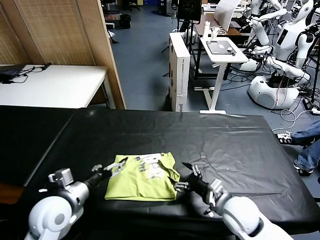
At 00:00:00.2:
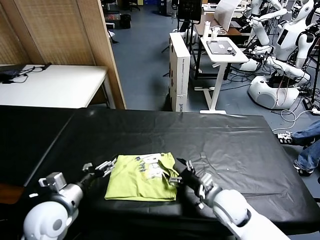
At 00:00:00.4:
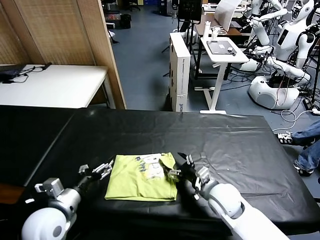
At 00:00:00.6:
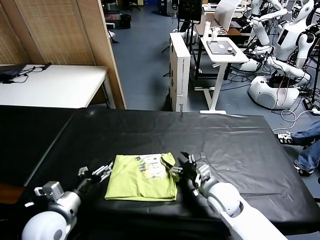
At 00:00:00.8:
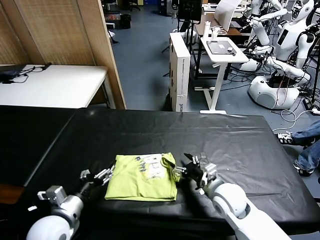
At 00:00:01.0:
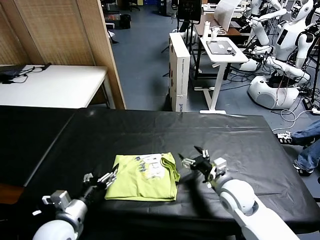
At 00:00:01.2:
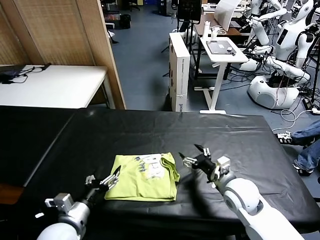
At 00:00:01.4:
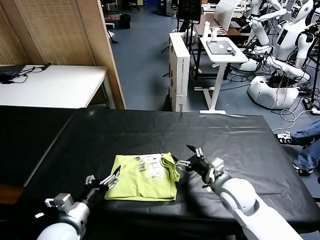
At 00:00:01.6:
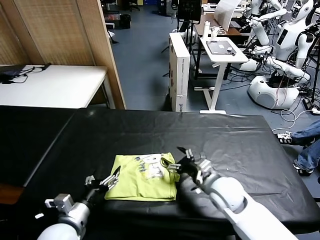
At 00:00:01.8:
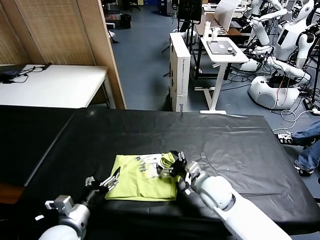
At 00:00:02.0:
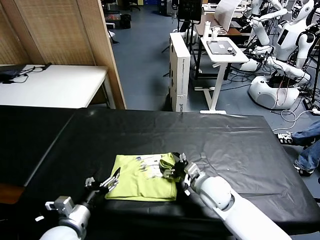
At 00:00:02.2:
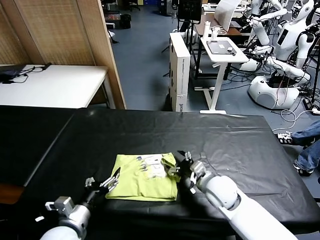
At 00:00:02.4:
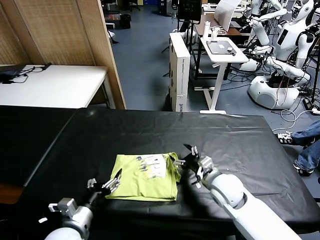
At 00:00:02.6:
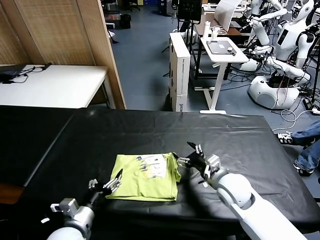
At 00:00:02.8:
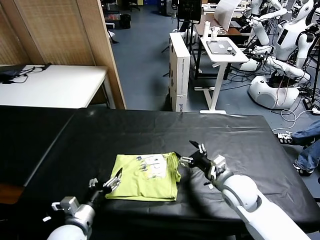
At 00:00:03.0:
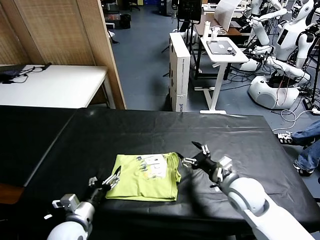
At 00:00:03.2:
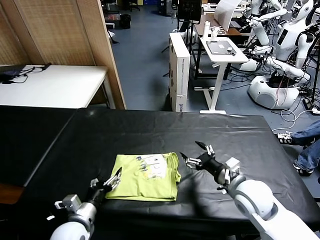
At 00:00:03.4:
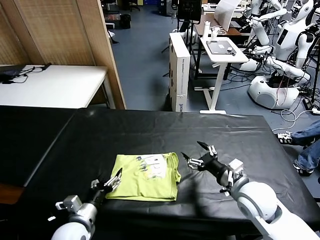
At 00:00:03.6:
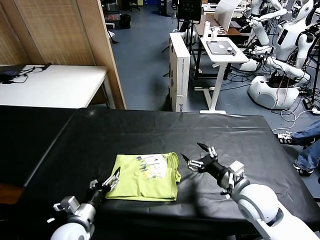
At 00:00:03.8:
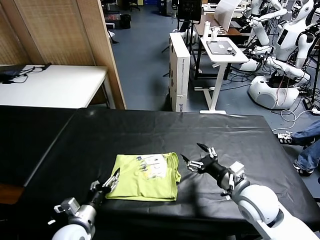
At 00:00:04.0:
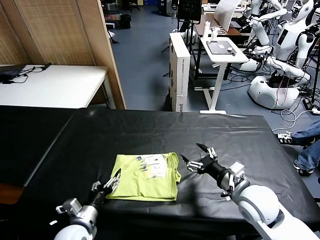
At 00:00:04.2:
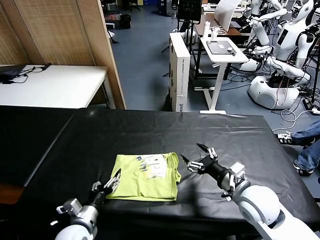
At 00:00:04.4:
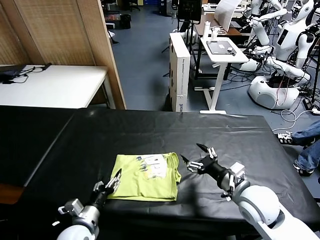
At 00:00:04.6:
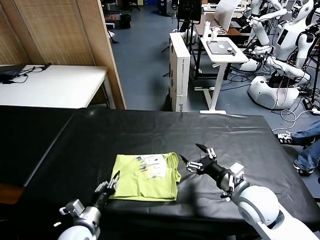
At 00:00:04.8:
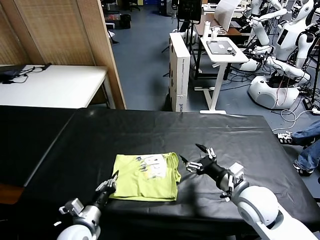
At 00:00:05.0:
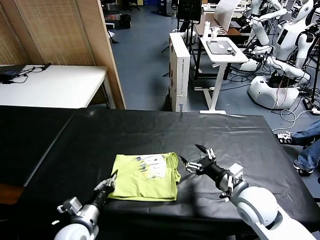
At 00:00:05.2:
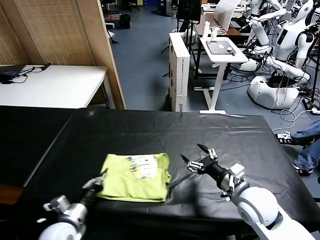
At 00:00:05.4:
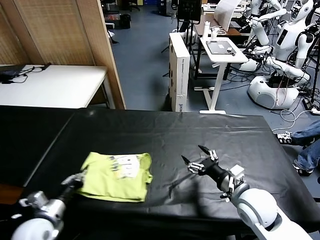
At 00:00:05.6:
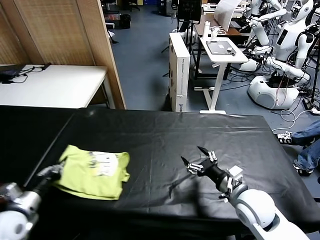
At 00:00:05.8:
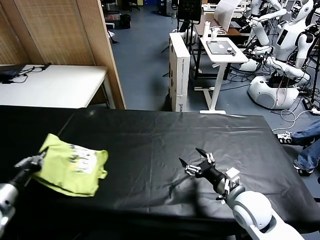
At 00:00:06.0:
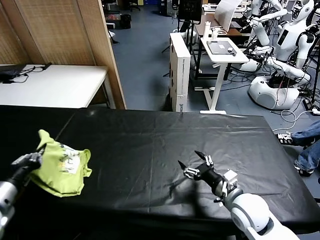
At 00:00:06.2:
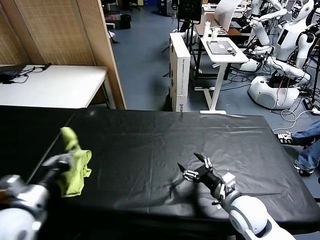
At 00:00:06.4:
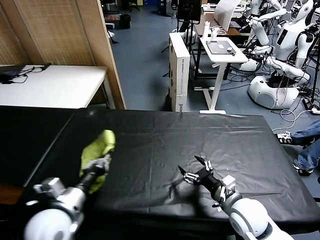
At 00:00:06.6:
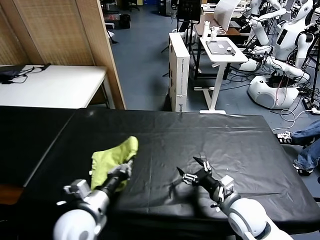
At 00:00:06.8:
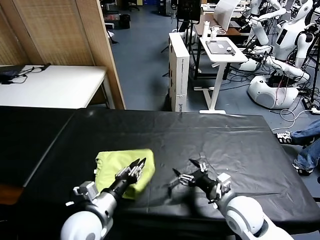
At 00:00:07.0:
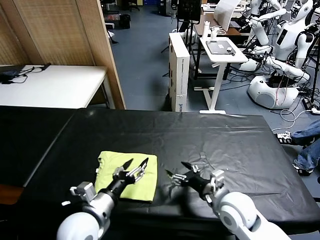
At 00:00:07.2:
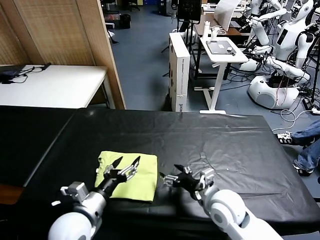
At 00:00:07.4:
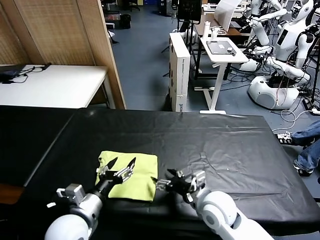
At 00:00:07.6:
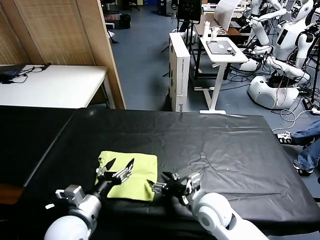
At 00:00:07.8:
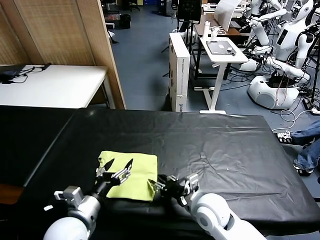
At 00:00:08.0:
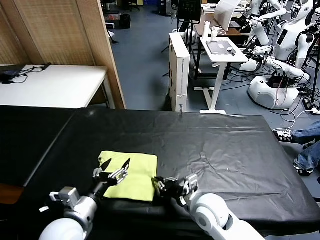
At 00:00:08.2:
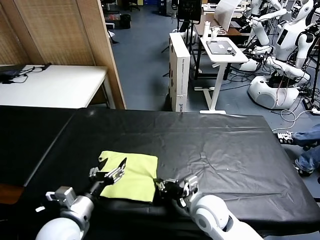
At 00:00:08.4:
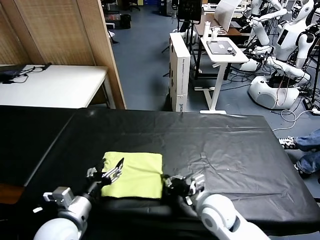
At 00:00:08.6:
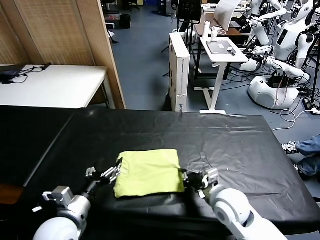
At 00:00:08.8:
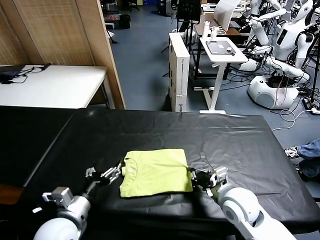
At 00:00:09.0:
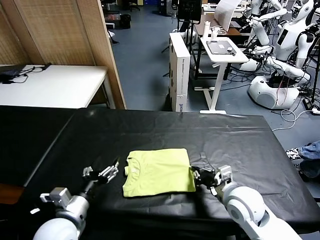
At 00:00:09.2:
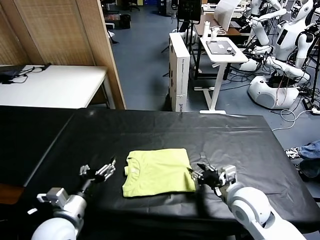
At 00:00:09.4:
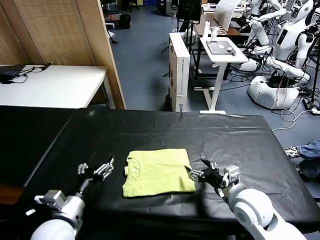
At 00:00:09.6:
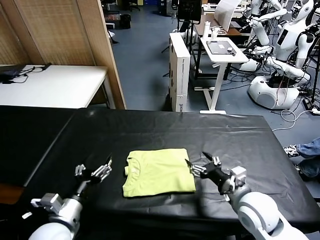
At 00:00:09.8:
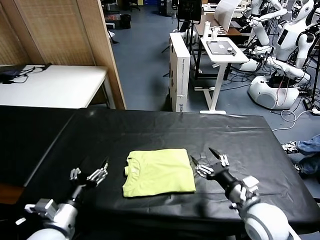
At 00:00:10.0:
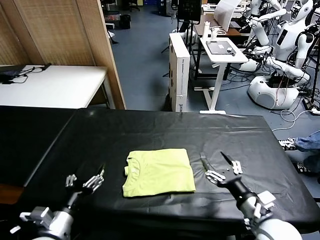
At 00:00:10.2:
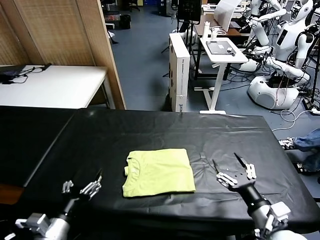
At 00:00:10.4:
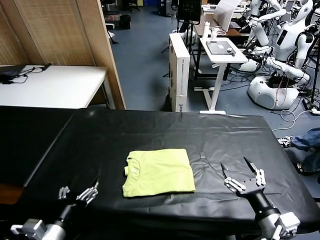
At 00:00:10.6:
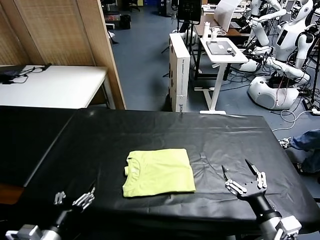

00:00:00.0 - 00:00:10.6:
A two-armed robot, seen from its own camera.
Task of the whole recording: fold and organize the clothes.
Step, 00:00:00.0 - 00:00:07.0: Flip the folded clothes over with left gripper.
Step, 00:00:07.2 - 00:00:09.2: Drag the clothes to the center of the table.
00:00:00.0 - 00:00:01.6: The right gripper goes some 5 cm forward, while the left gripper shifts roughly 5 cm backward.
00:00:01.6 - 00:00:03.0: The right gripper goes some 5 cm to the right.
00:00:03.0 - 00:00:04.6: The left gripper closes.
00:00:04.6 - 00:00:06.0: The left gripper is displaced upward and to the left by about 25 cm, and closes.
00:00:06.0 - 00:00:07.6: The right gripper goes roughly 10 cm to the left. Meanwhile the left gripper heads to the right, covering some 20 cm, and opens.
00:00:07.6 - 00:00:09.0: The right gripper moves to the right, roughly 10 cm, and closes its fingers.
00:00:09.0 - 00:00:10.6: The right gripper heads backward and to the right, covering about 15 cm, and opens its fingers. The left gripper moves backward, about 10 cm.
